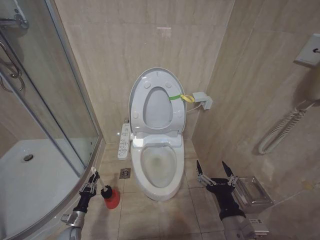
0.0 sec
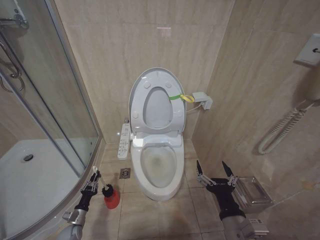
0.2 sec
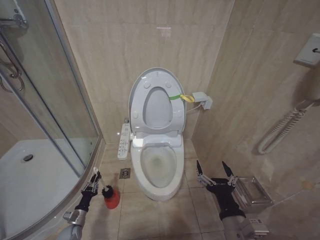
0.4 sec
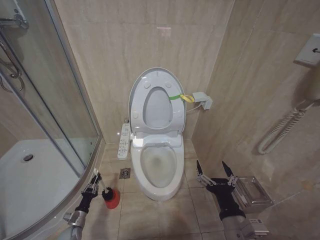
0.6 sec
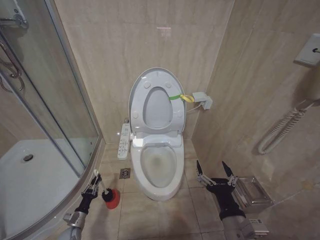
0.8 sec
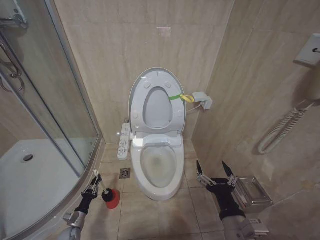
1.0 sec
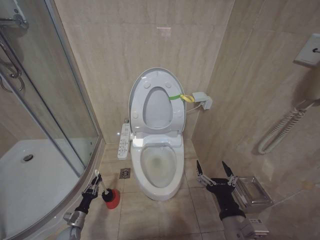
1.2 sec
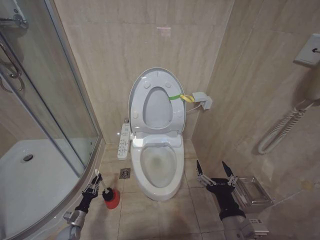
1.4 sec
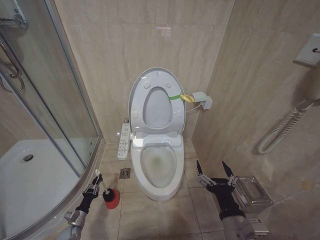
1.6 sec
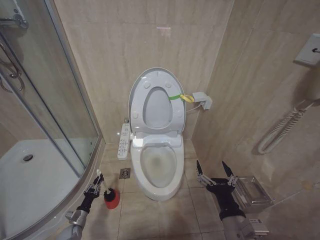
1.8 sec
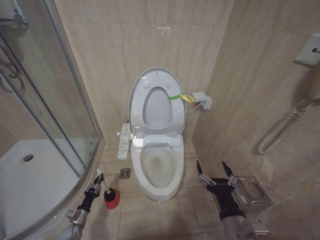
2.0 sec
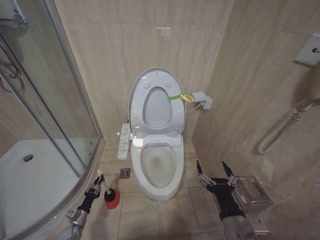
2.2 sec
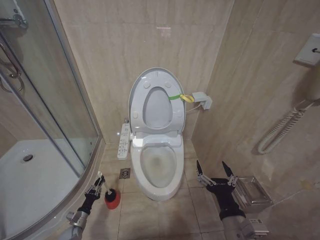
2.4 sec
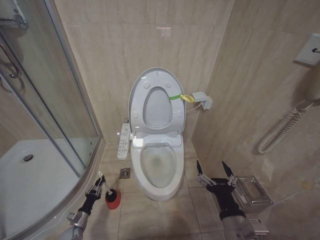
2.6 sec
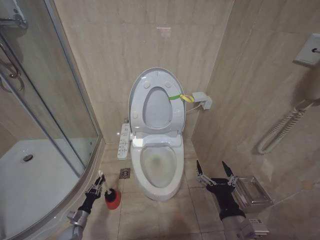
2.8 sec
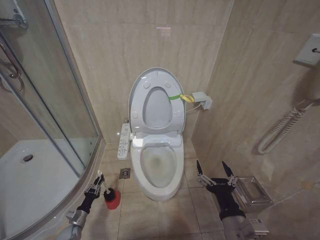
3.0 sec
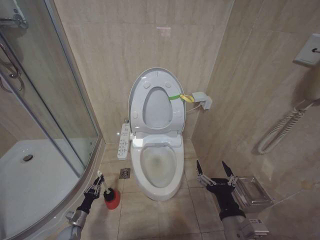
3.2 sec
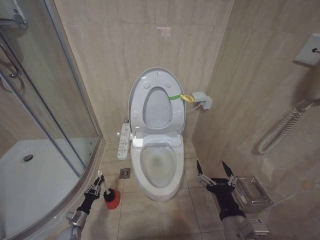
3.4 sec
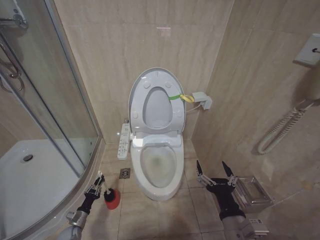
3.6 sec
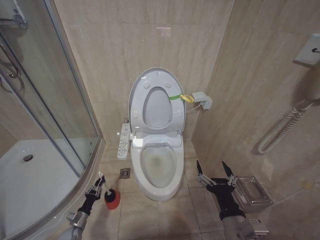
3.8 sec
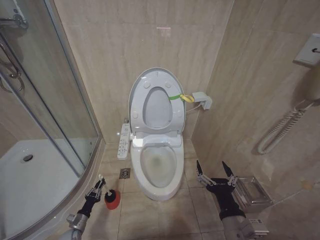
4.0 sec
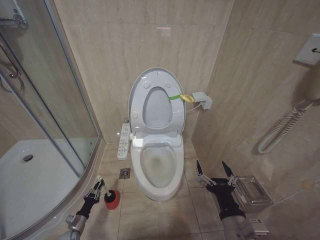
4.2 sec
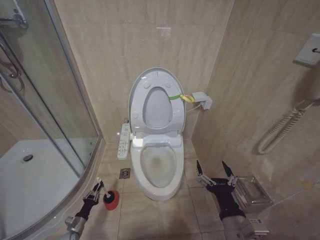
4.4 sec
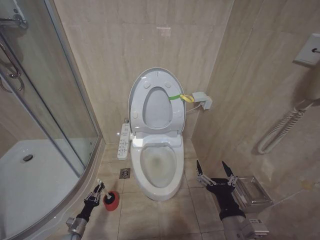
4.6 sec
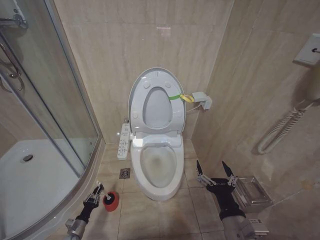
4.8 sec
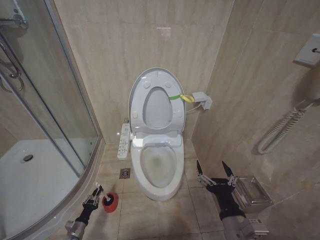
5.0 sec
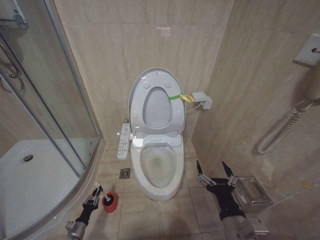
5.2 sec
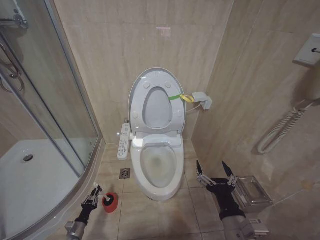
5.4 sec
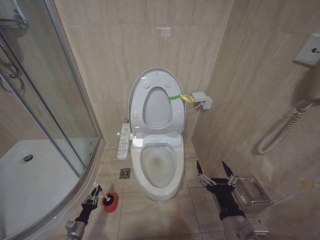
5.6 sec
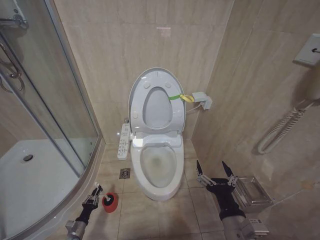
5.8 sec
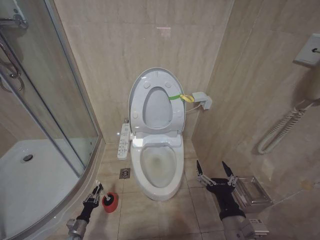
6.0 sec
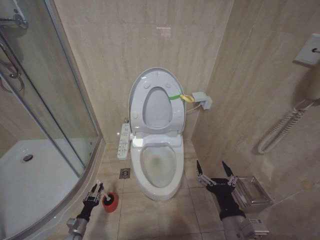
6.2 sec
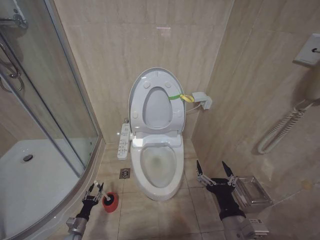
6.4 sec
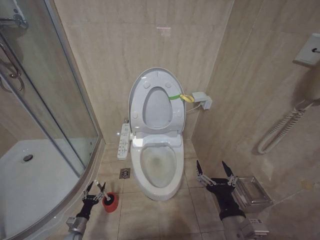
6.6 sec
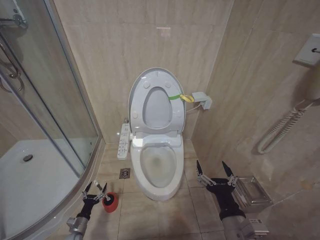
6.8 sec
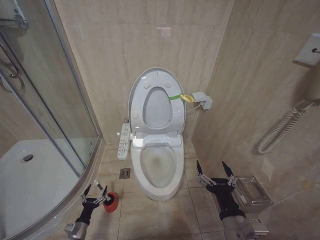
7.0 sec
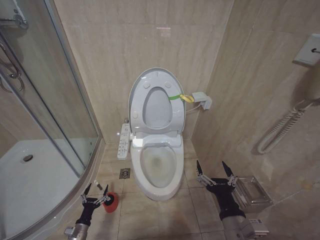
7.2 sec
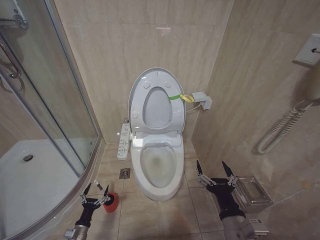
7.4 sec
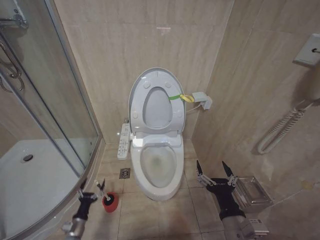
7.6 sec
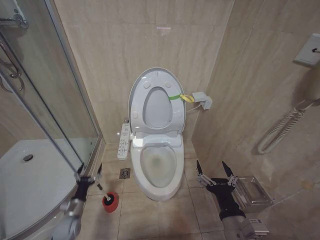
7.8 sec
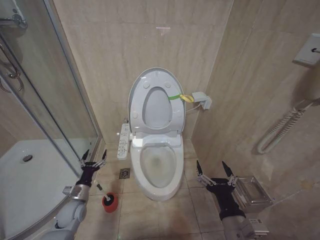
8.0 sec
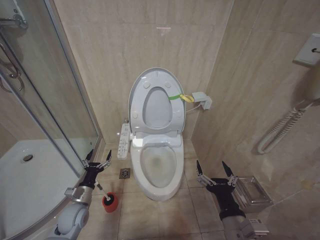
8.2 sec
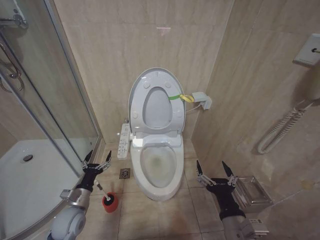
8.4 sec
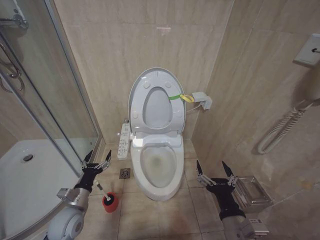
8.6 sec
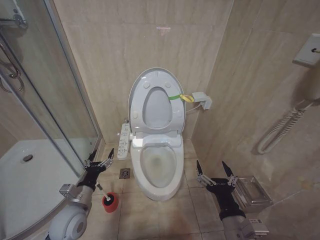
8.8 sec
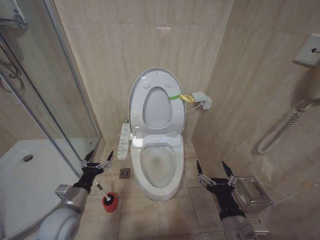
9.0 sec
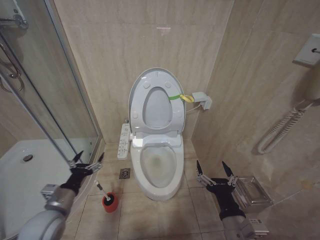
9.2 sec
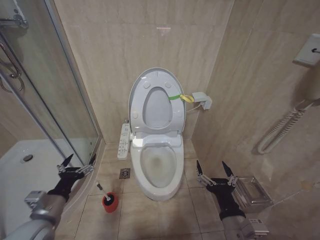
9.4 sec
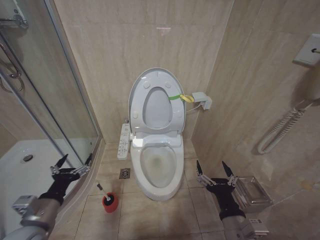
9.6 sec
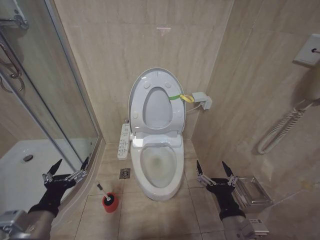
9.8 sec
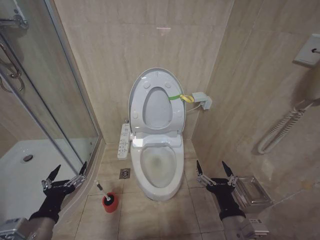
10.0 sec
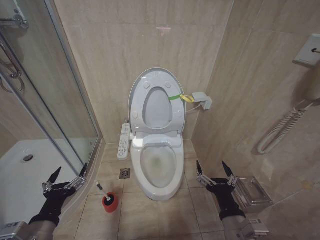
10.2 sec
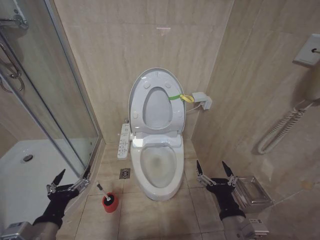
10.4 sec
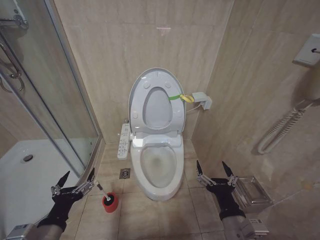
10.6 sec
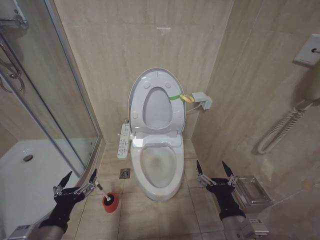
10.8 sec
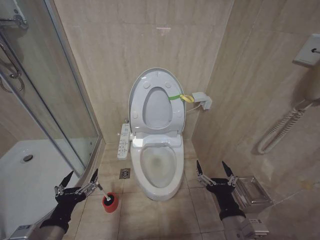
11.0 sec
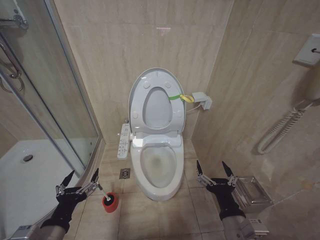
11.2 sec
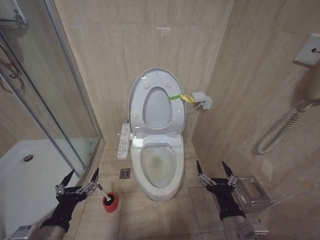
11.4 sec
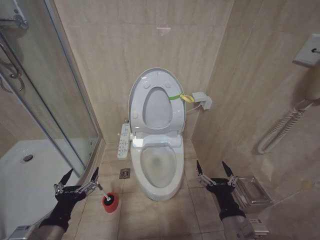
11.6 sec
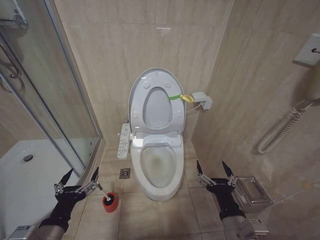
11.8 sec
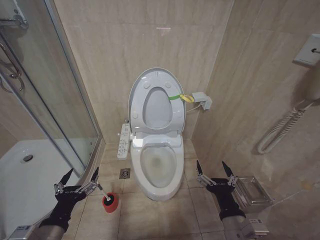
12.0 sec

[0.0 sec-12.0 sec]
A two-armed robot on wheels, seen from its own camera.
Task of the whole recording: Open the toilet lid, clean the toilet bowl with a toilet brush, close the toilet lid, and flush.
1.6 sec to 3.0 sec: Both grippers stay about where they are.
6.0 sec to 7.6 sec: The left gripper travels upward by about 10 cm, and opens its fingers.
7.6 sec to 9.0 sec: The left gripper travels upward by roughly 25 cm.
9.0 sec to 10.4 sec: The left gripper heads backward and upward, covering some 15 cm.
10.4 sec to 12.0 sec: The grippers make only small movements.

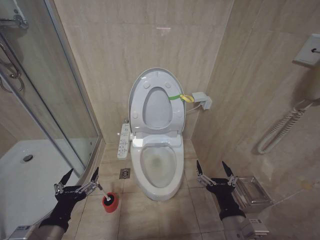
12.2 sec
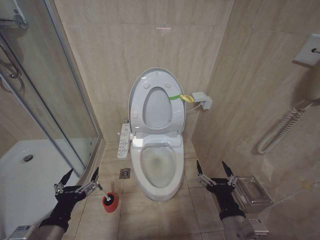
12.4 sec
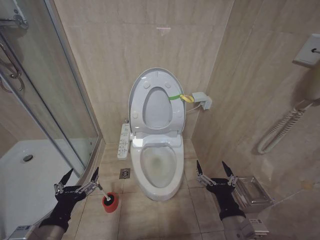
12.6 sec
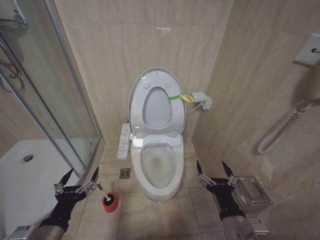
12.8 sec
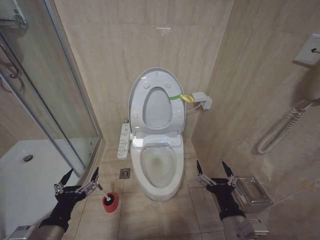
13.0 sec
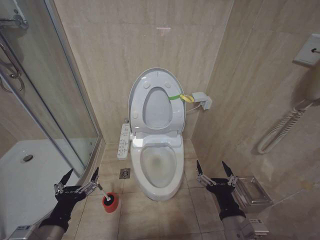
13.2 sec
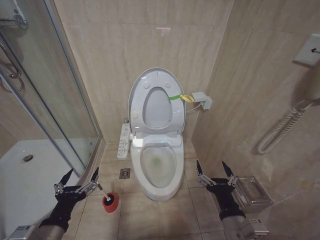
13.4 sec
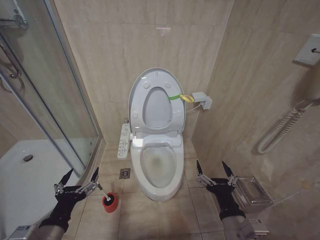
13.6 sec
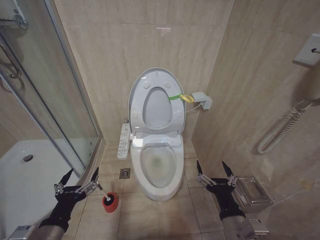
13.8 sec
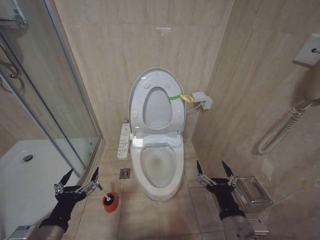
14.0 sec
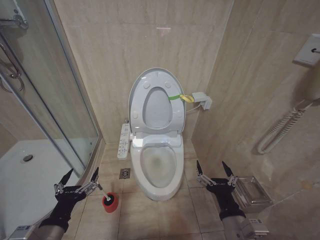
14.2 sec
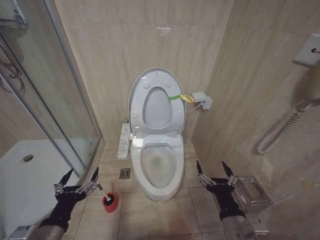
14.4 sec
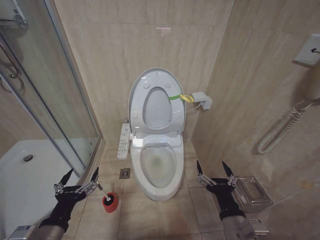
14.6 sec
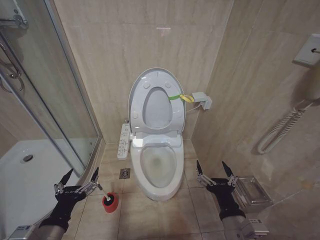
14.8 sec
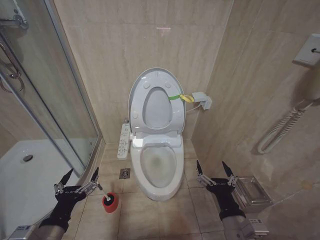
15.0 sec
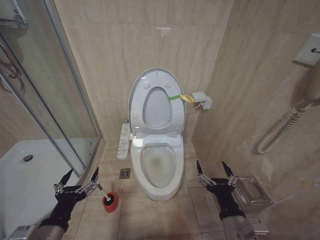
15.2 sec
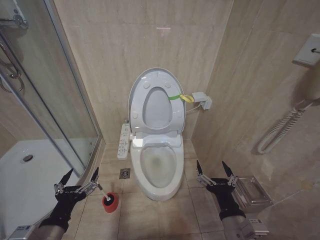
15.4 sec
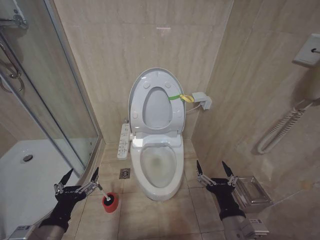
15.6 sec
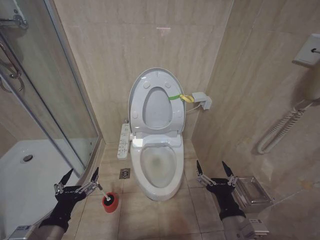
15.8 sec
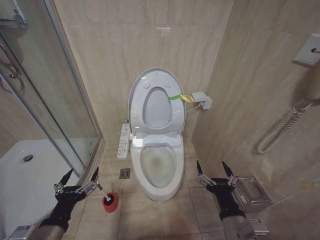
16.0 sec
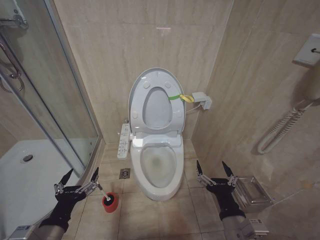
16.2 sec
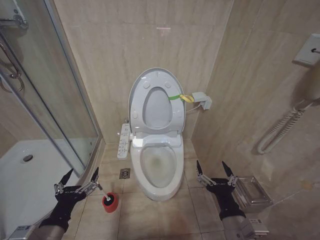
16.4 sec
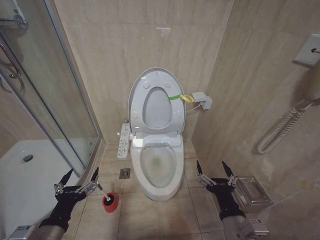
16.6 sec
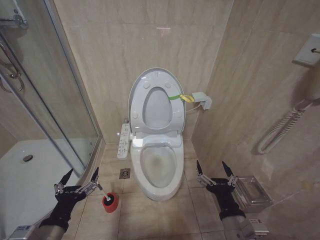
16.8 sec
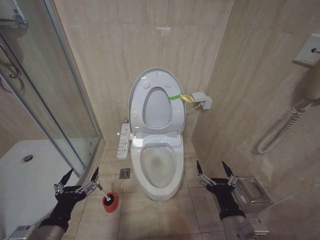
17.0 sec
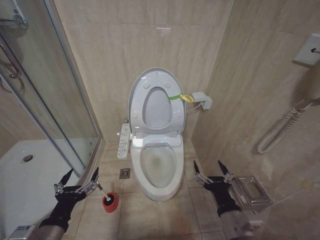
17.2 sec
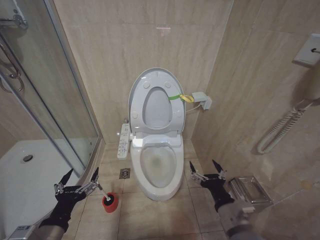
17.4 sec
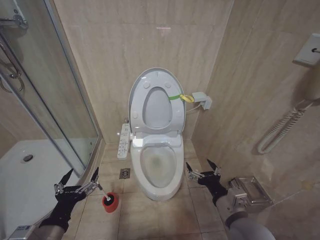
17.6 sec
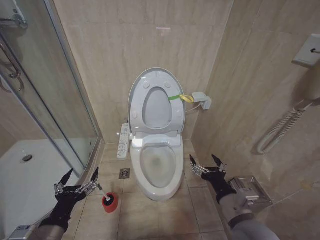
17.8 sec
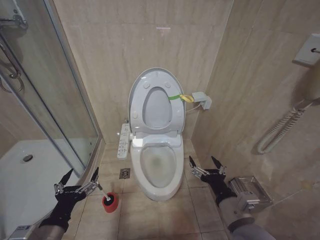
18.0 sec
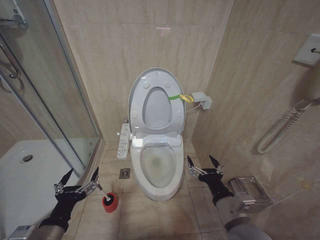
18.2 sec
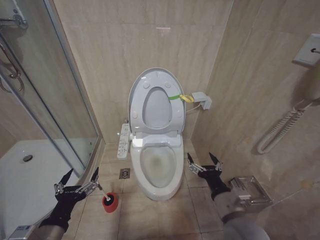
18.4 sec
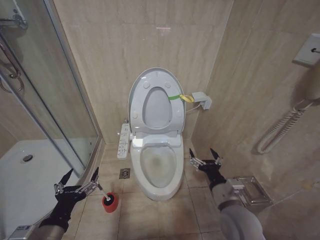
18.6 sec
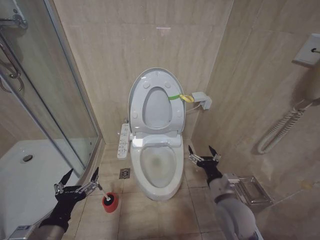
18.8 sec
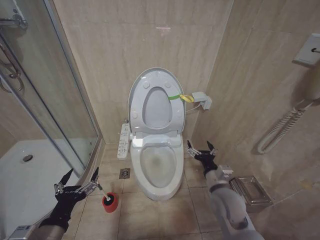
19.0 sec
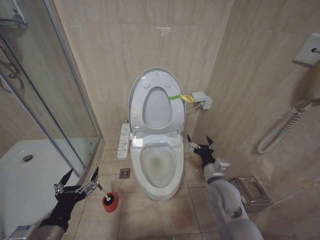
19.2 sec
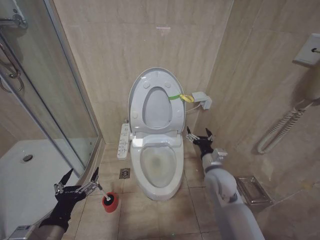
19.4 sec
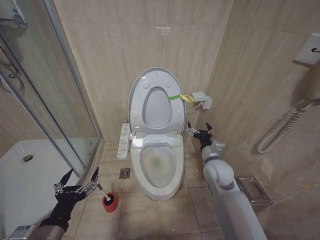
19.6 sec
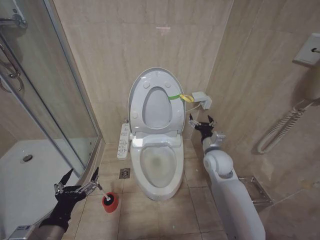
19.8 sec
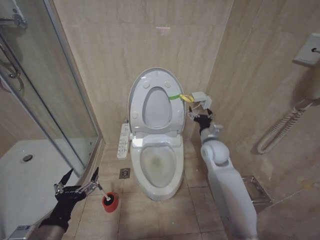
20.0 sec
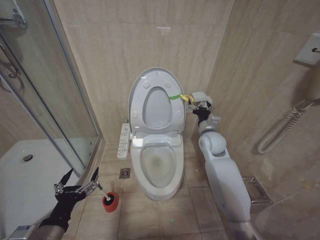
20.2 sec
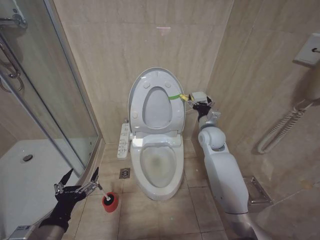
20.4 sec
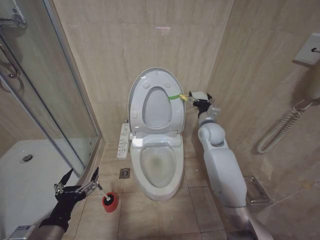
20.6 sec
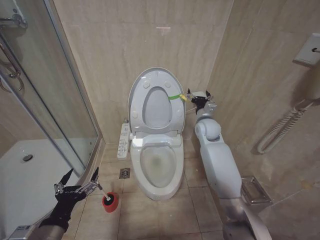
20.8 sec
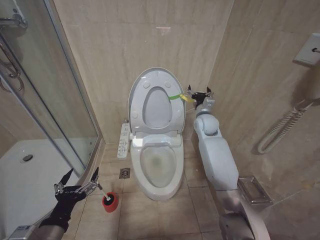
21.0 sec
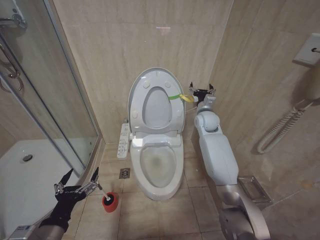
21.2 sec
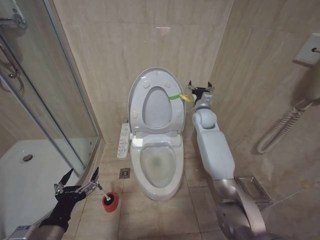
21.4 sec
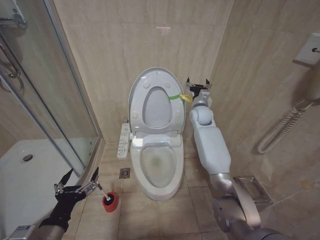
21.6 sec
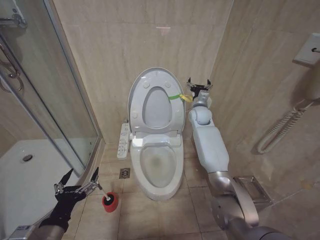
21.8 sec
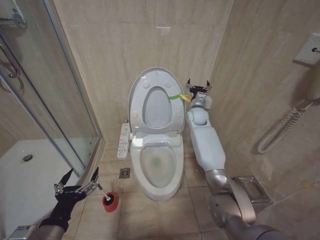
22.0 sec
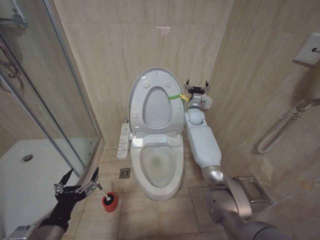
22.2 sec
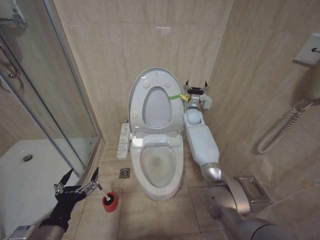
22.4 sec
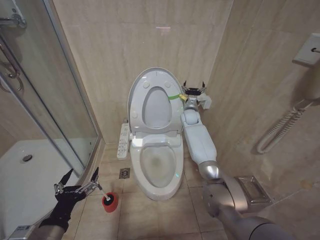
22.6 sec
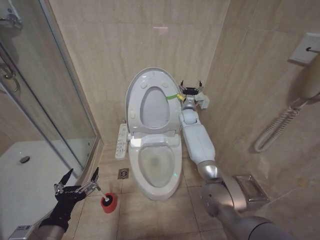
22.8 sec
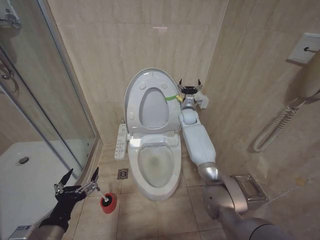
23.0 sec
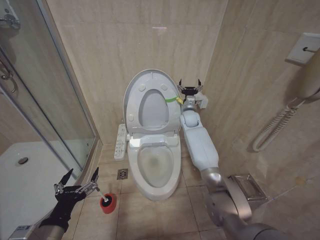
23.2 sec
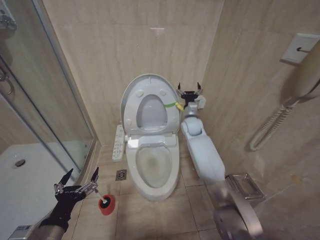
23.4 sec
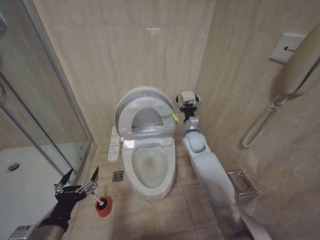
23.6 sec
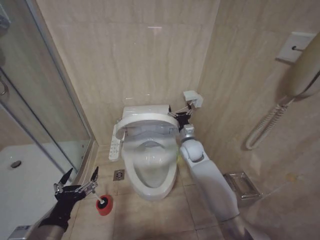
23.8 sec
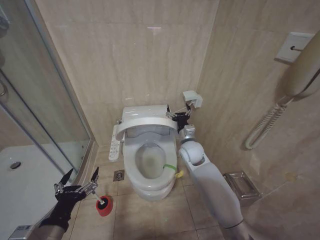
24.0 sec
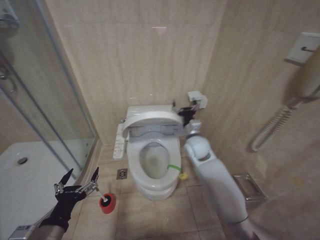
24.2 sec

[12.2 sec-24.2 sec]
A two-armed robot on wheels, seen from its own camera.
Task of the whole recording: Open the toilet lid, clean the toilet bowl with a toilet brush, close the toilet lid, and flush.
12.2 sec to 16.6 sec: Both grippers stay about where they are.
16.6 sec to 18.2 sec: The grippers stay close to where they were, moving slightly.
18.2 sec to 19.8 sec: The right gripper travels forward by about 25 cm.
19.8 sec to 21.2 sec: The right gripper is displaced forward and upward by about 20 cm.
21.2 sec to 22.6 sec: The right gripper goes roughly 10 cm forward.
22.6 sec to 24.2 sec: The right gripper heads backward, covering about 20 cm.
